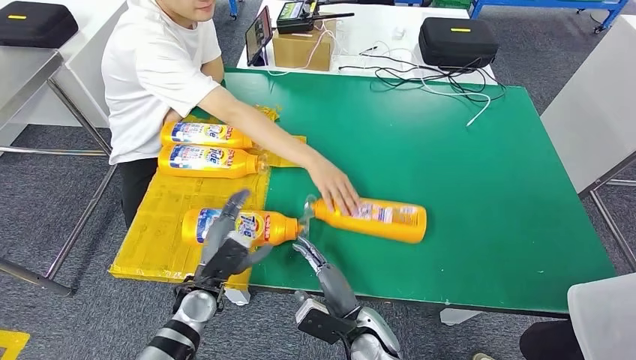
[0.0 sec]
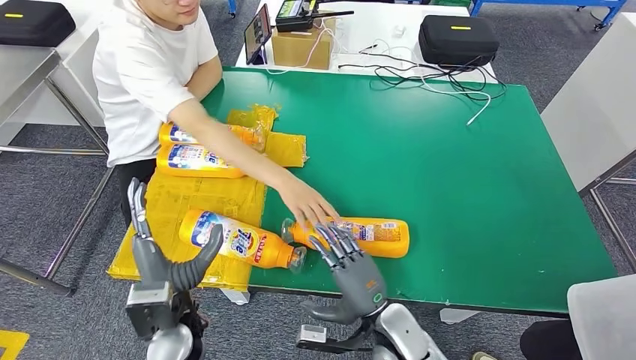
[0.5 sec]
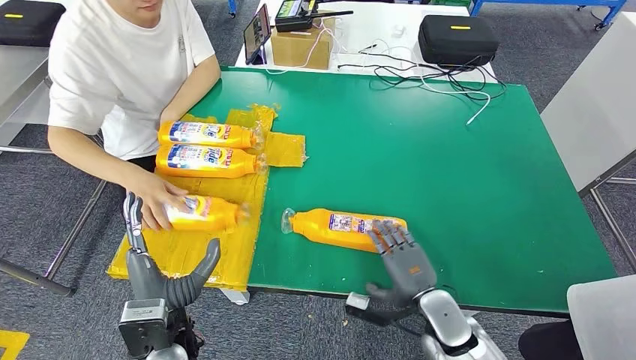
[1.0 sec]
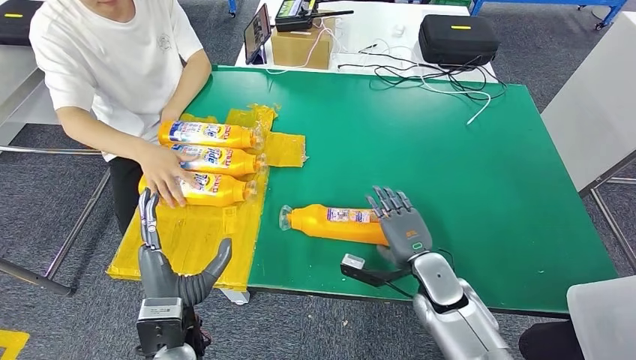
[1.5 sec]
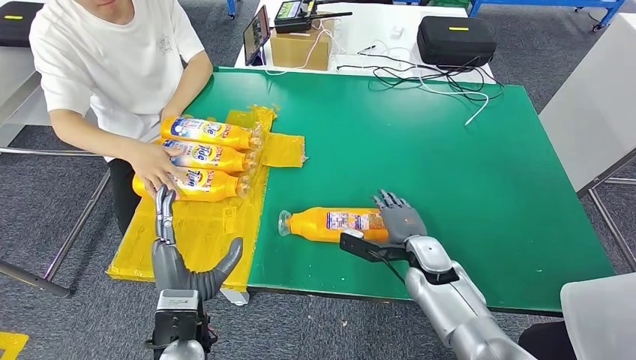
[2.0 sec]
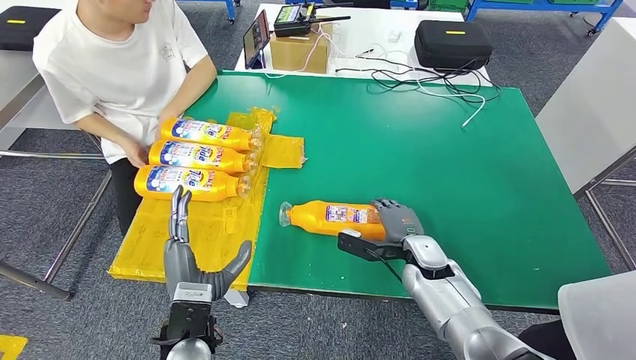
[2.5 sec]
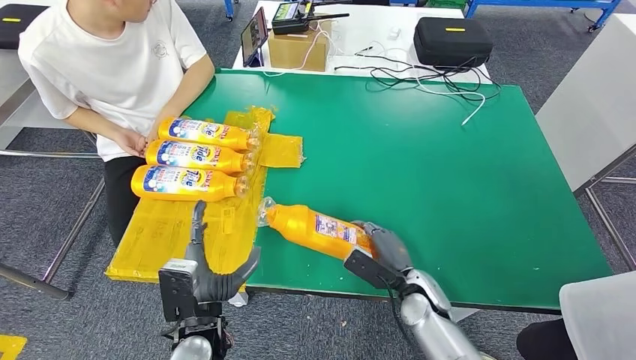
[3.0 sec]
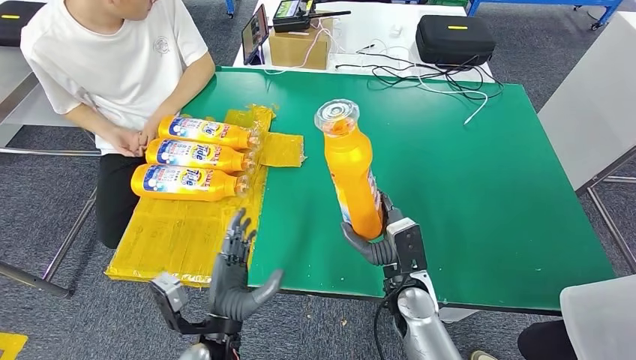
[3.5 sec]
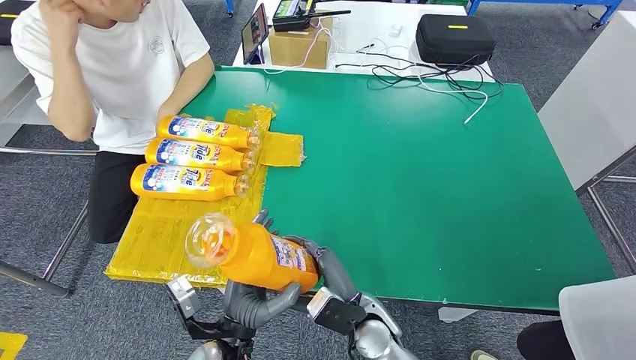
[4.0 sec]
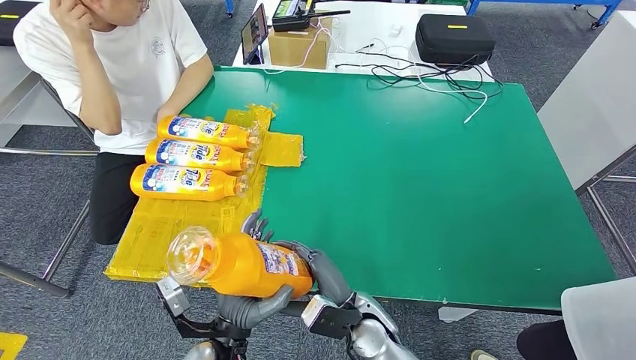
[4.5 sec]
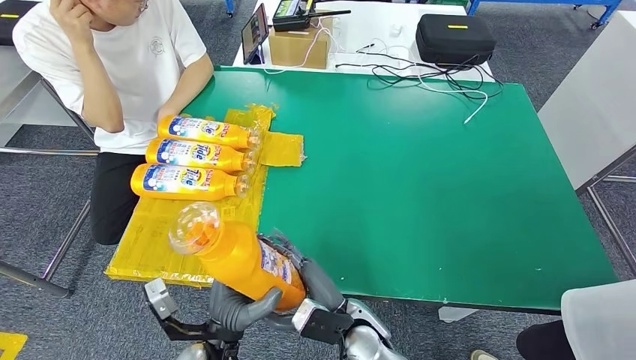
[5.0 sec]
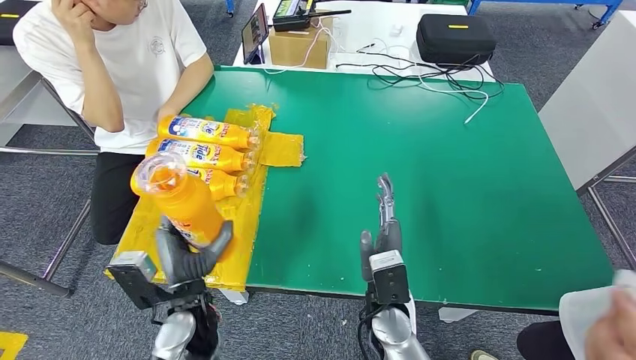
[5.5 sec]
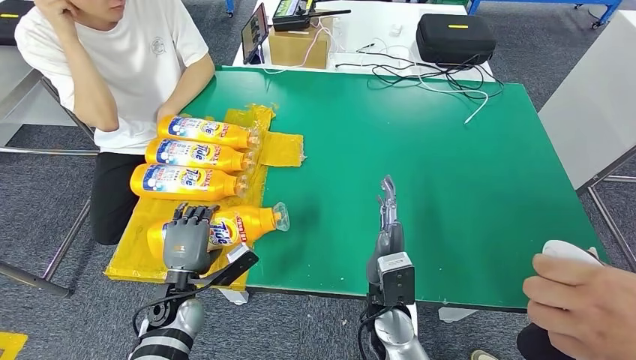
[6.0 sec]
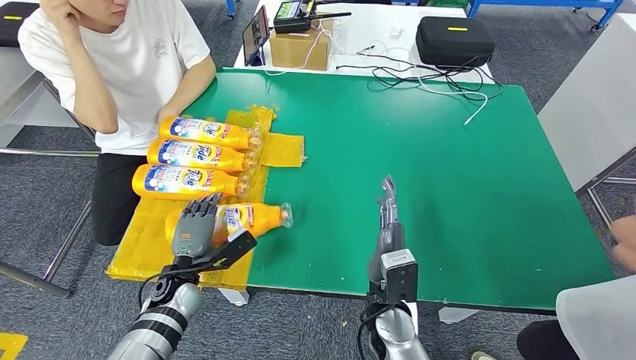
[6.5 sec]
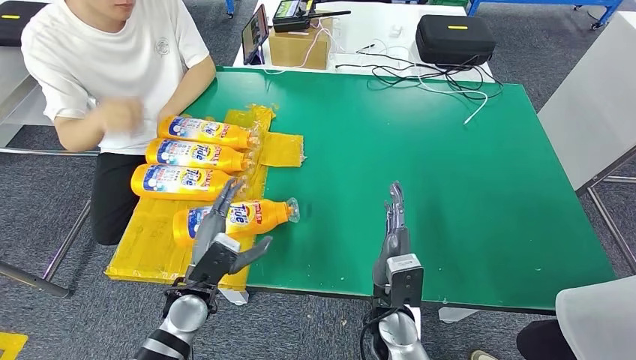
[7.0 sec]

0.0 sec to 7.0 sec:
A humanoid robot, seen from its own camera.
Step, 0.5 sec to 3.0 sec: Pick up the fast-moving consumer goods bottle from the table.
Step, 3.5 sec to 7.0 sec: Flip the fast-moving consumer goods bottle to the front side.
3.5 sec to 5.0 sec: The right hand is displaced to the left and backward by some 10 cm.
5.0 sec to 7.0 sec: The left hand shifts some 10 cm forward and to the left, while the right hand heads to the right, covering about 5 cm.
